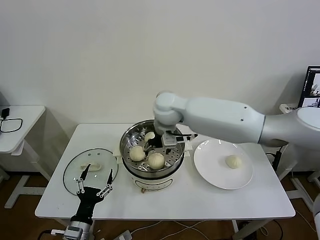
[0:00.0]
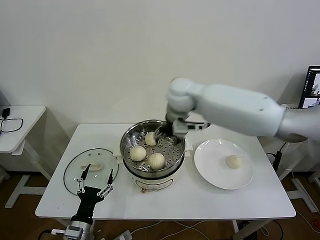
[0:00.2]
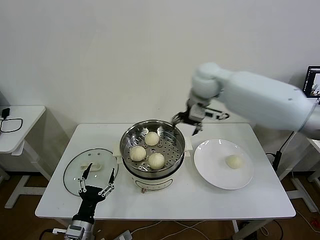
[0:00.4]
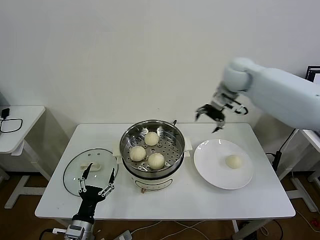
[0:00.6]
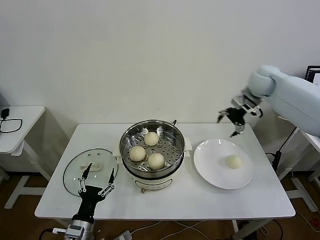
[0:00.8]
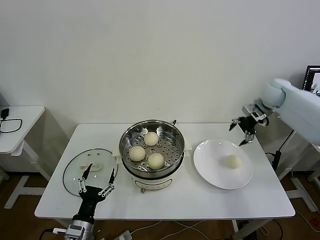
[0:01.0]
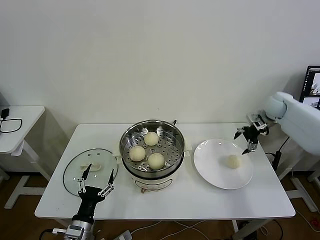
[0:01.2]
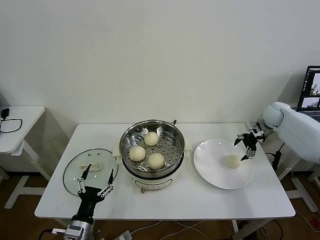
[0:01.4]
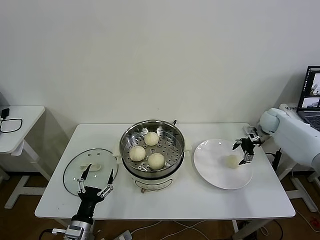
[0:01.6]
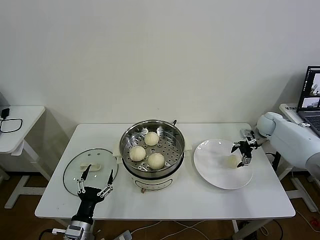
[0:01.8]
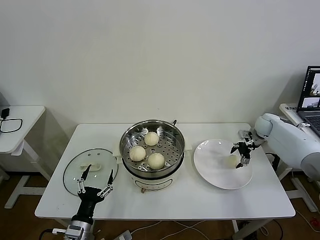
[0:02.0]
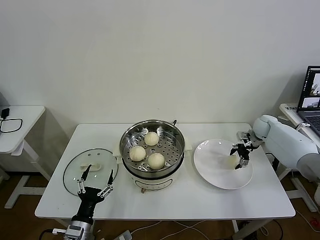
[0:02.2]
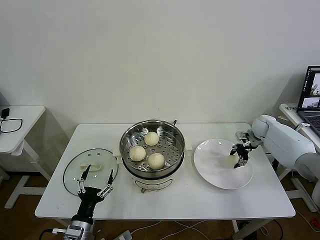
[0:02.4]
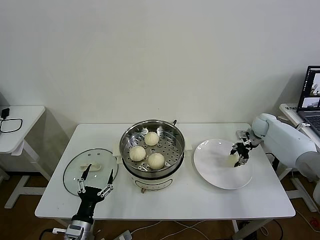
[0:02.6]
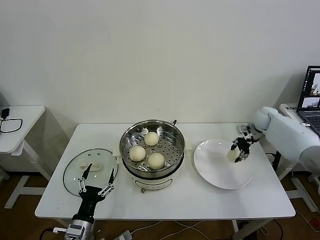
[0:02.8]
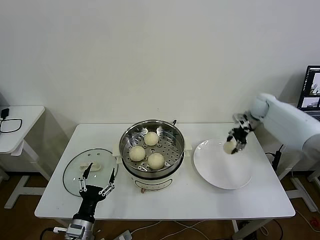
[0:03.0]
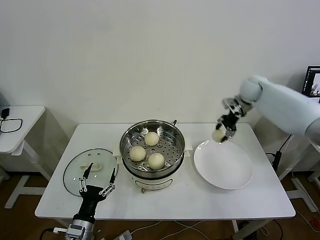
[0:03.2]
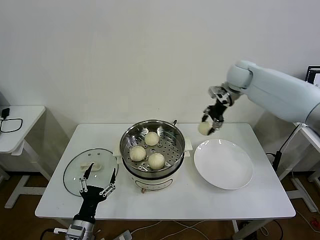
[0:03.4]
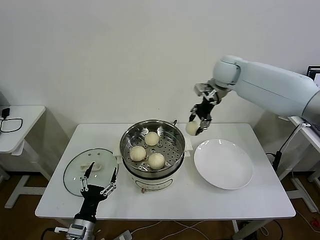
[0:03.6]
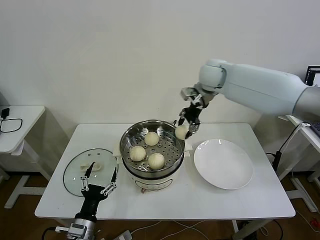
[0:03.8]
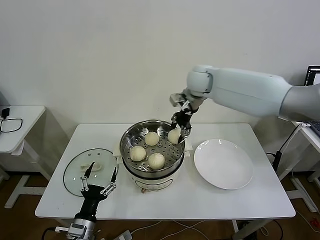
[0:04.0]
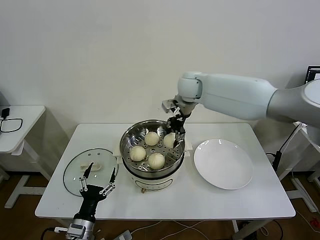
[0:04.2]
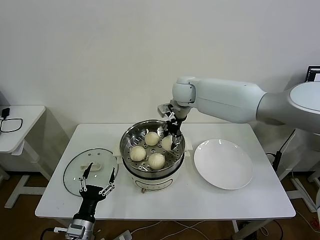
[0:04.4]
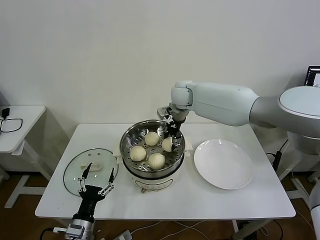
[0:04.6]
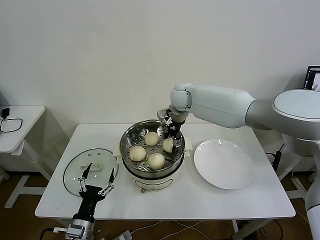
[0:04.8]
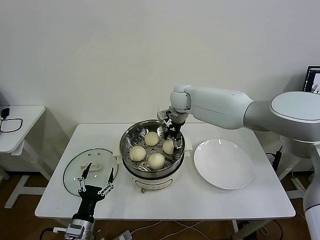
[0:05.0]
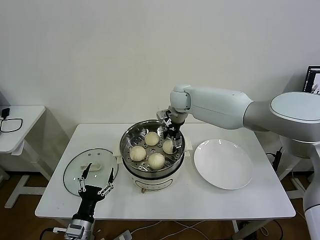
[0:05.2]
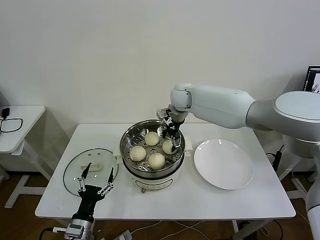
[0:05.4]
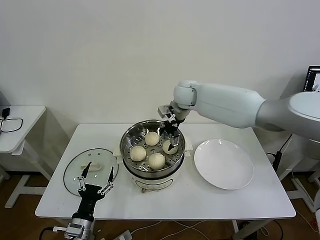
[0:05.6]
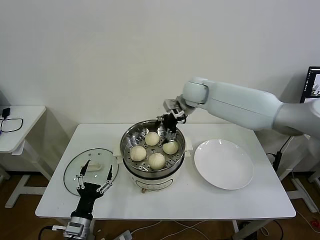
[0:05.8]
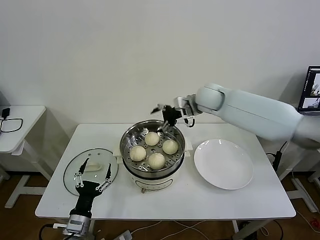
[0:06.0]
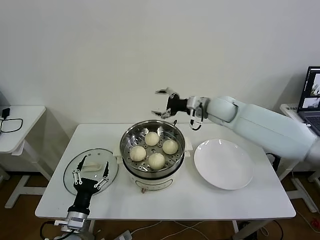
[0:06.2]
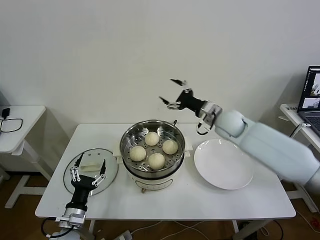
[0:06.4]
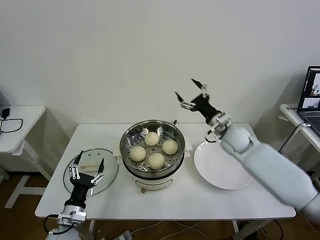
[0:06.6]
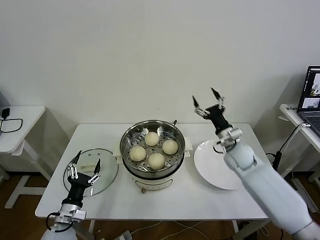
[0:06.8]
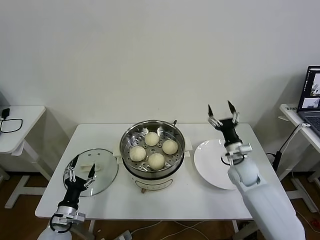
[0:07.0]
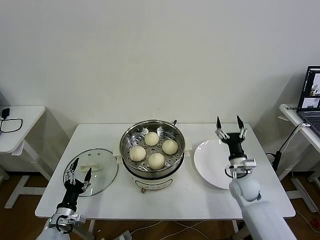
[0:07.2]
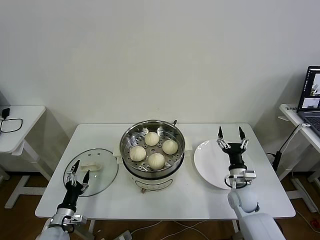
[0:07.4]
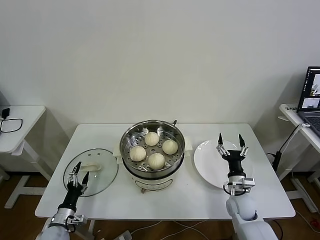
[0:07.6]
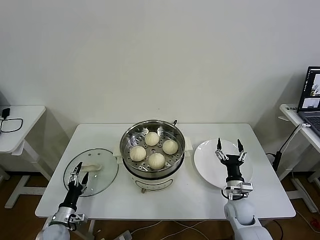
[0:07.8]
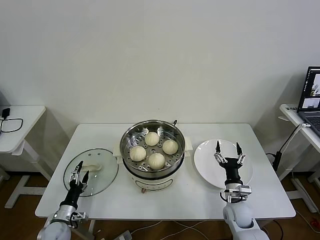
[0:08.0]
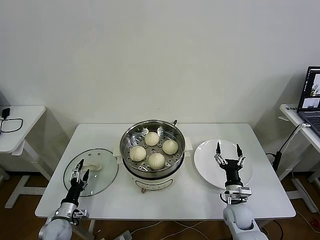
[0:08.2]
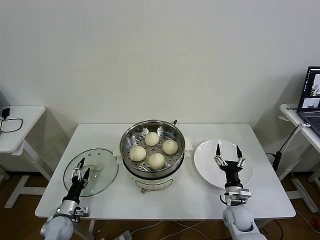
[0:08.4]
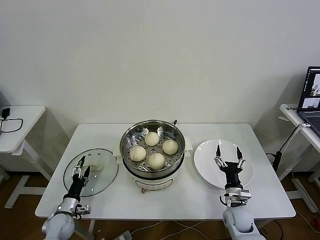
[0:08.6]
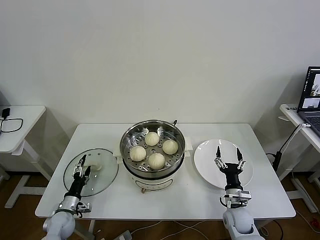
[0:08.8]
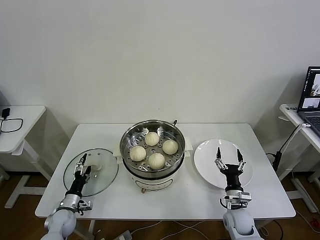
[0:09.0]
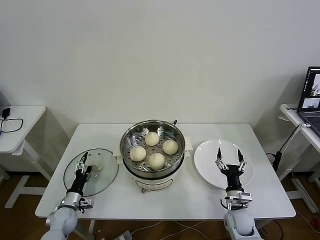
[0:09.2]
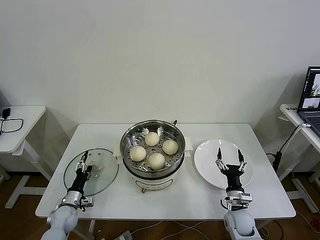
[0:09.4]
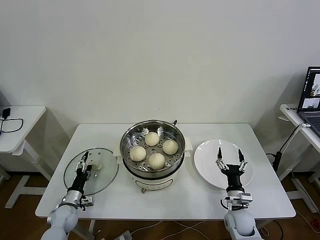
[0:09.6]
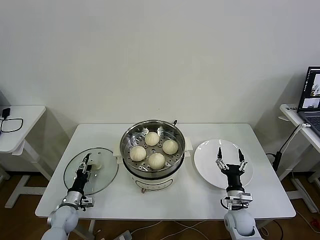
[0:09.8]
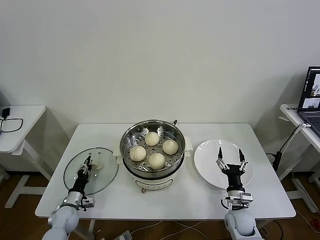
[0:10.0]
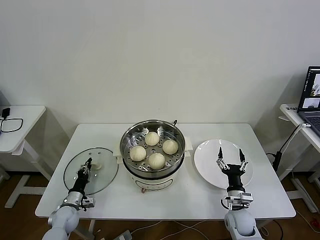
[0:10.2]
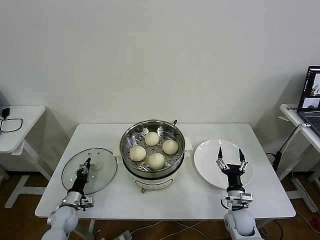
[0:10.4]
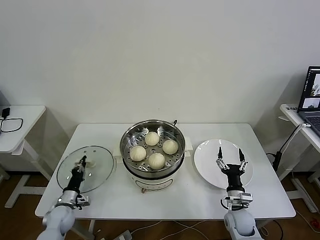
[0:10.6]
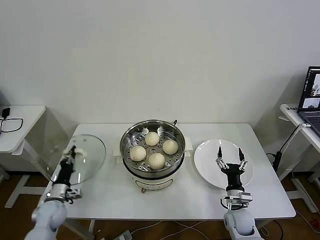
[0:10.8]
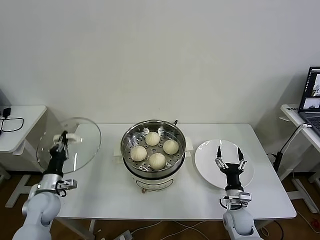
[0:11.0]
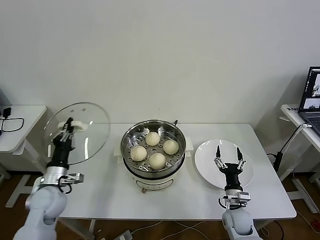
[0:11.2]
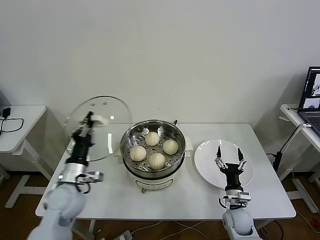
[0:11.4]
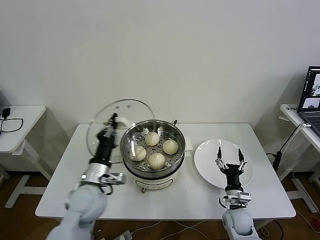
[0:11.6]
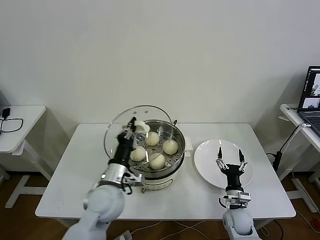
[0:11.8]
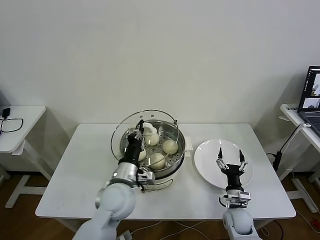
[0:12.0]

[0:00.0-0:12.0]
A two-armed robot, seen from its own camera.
Task of the whole recording: take steamed baozi put them in steamer then cover it.
Step, 0:00.2 to 0:02.4: Grasp the baozi in the plate with right gripper.
Step, 0:02.8 to 0:05.6: Place the baozi on the steamer with right gripper.
Step, 0:05.8 to 0:10.4: Grasp the pot lid with left gripper.
0:00.0 to 0:01.6: The right gripper moves to the right, some 40 cm.
0:01.6 to 0:03.0: The right gripper is displaced upward and to the left by some 10 cm, and closes up.
0:03.0 to 0:04.4: The right gripper travels to the left by about 30 cm.
0:04.4 to 0:06.0: The right gripper moves to the right, some 10 cm, and opens up.
0:06.0 to 0:07.6: The left gripper shifts roughly 15 cm to the left and downward. Meanwhile the right gripper is displaced downward, backward and to the right by approximately 40 cm.
0:07.6 to 0:09.0: The right gripper ends up some 5 cm from where it was; the left gripper shifts approximately 5 cm forward.
0:09.0 to 0:10.4: The left gripper closes.
0:10.4 to 0:12.0: The left gripper shifts roughly 35 cm to the right and upward.

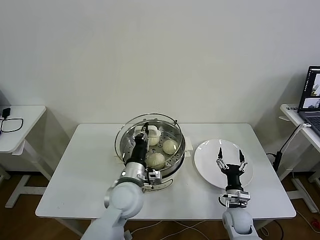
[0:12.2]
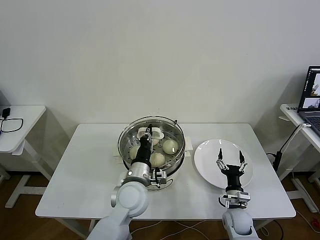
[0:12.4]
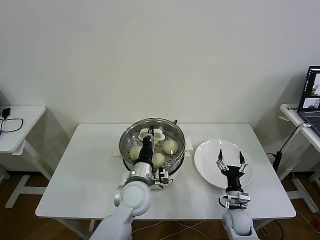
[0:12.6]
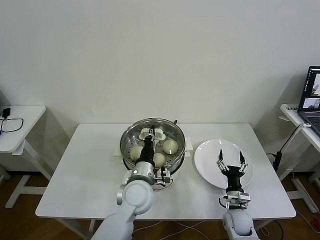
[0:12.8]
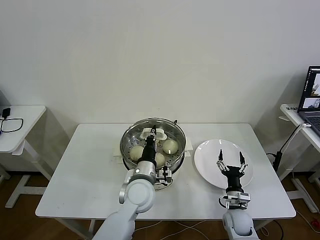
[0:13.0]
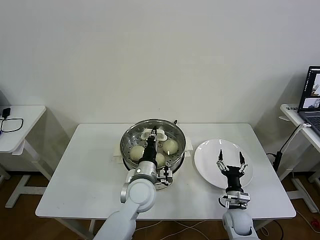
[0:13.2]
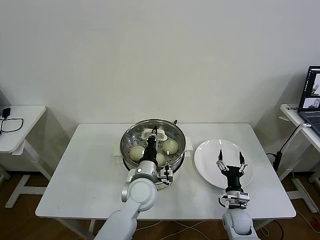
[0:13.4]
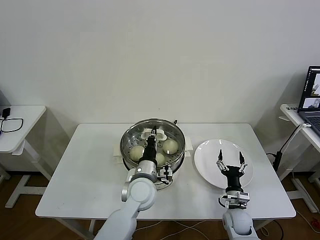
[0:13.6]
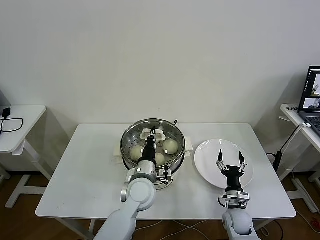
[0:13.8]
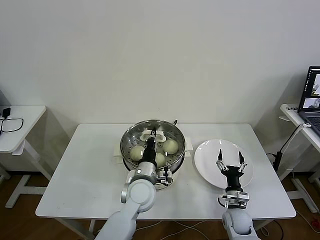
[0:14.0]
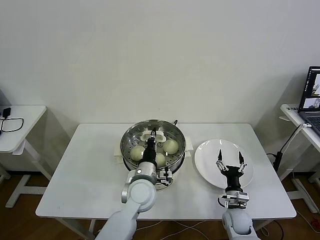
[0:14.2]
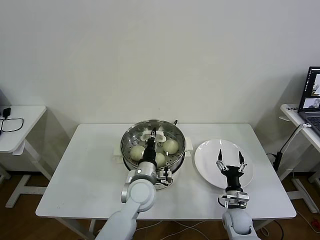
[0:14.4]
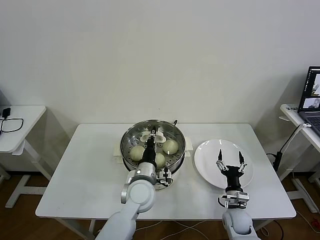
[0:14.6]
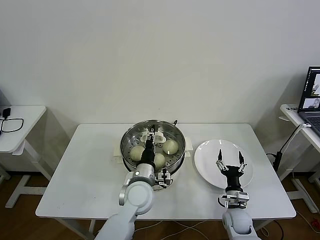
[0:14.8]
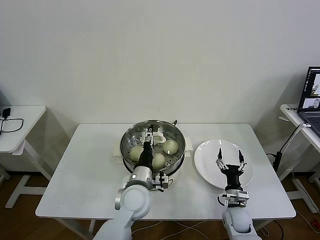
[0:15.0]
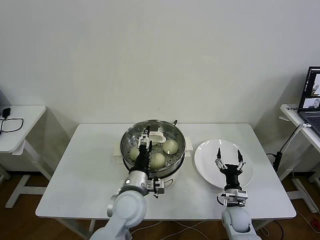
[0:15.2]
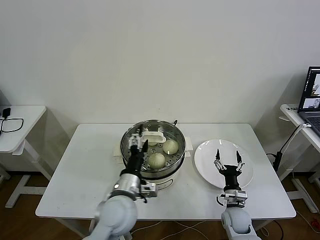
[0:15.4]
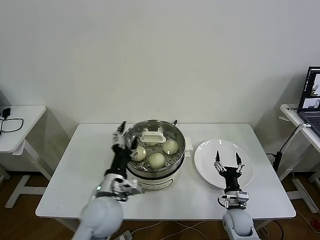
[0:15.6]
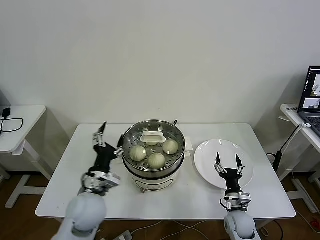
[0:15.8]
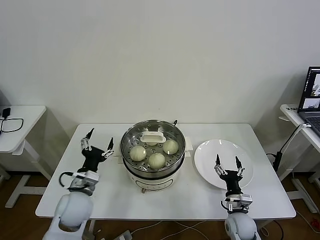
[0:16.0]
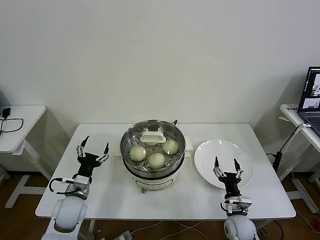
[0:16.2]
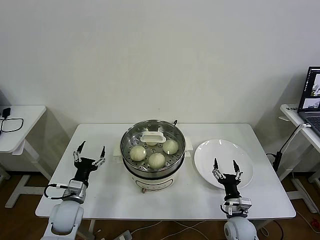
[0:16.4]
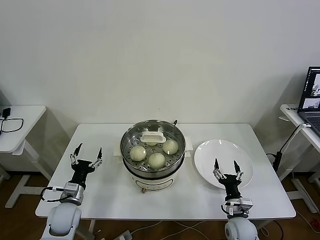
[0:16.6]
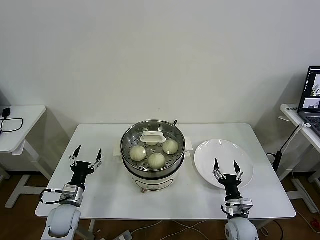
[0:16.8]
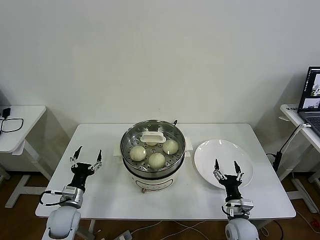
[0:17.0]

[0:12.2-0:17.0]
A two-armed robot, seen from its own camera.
Task of the whole recording: take steamed baozi put them in steamer then cover it.
Step, 0:12.2 to 0:15.0: Place the pot lid on the steamer with left gripper.
0:12.2 to 0:13.8: The left gripper moves approximately 5 cm.
0:13.8 to 0:15.4: The left gripper heads backward, covering some 5 cm, and opens.
0:15.4 to 0:17.0: The right gripper ends up roughly 5 cm from where it was, while the left gripper shifts approximately 25 cm to the left and downward.
